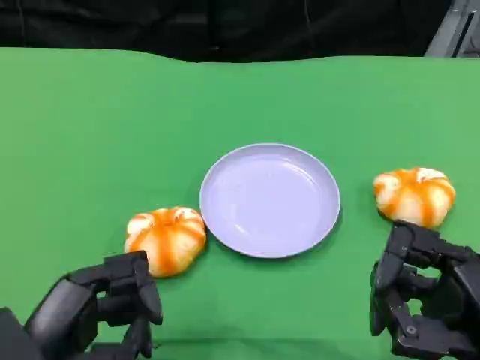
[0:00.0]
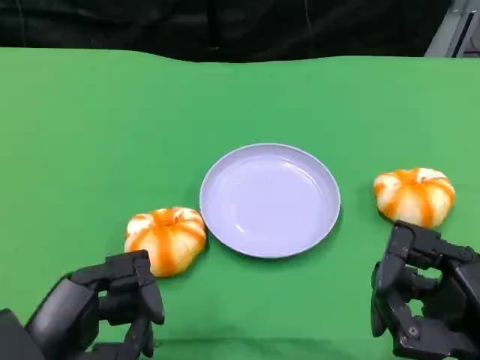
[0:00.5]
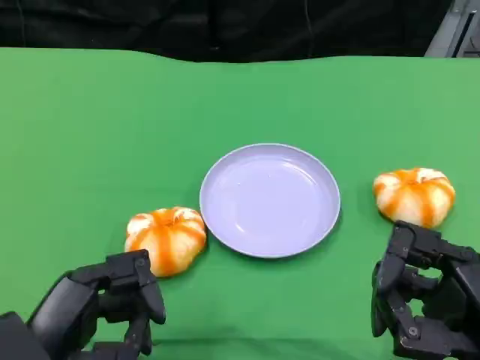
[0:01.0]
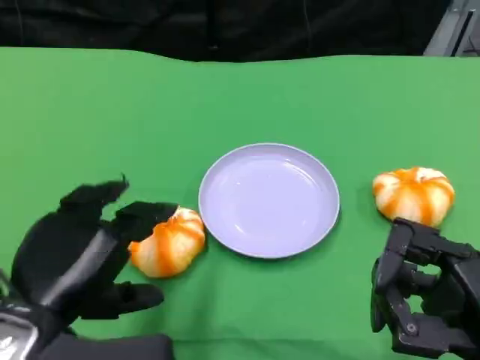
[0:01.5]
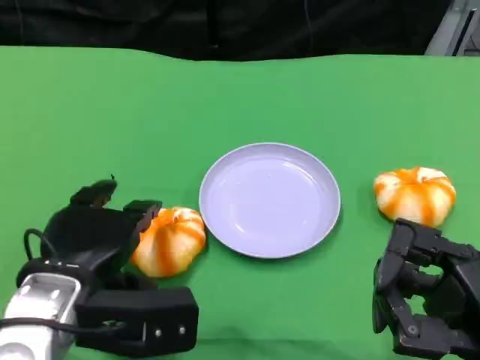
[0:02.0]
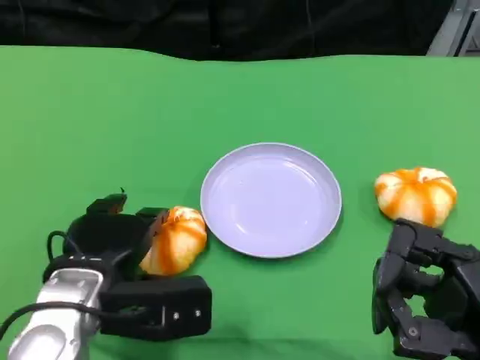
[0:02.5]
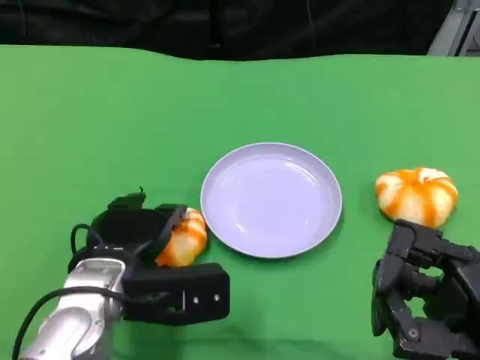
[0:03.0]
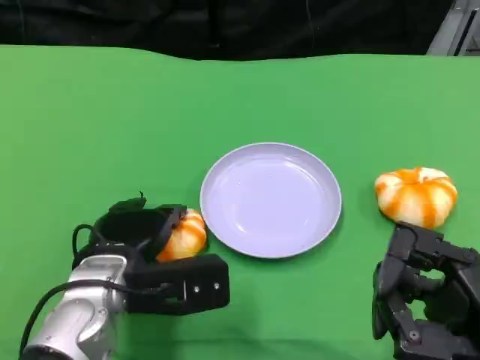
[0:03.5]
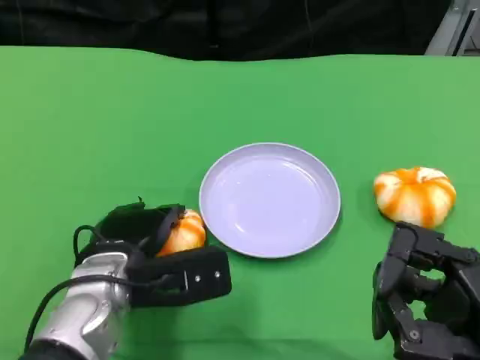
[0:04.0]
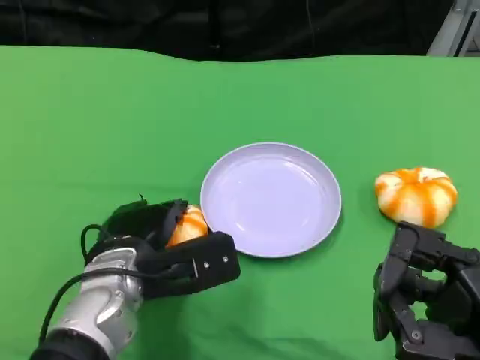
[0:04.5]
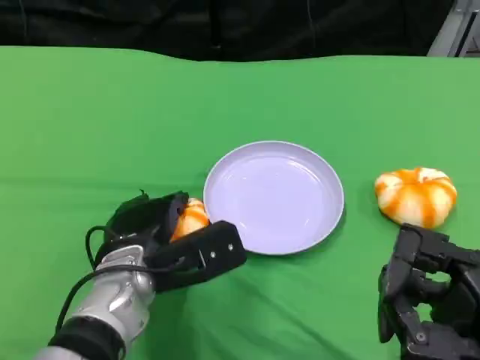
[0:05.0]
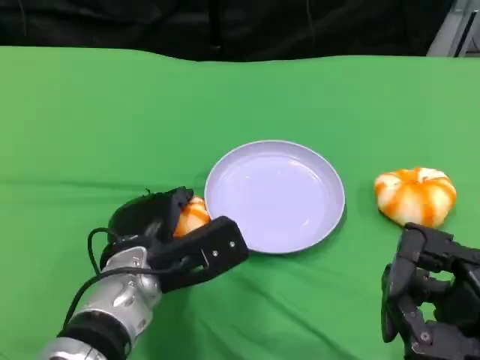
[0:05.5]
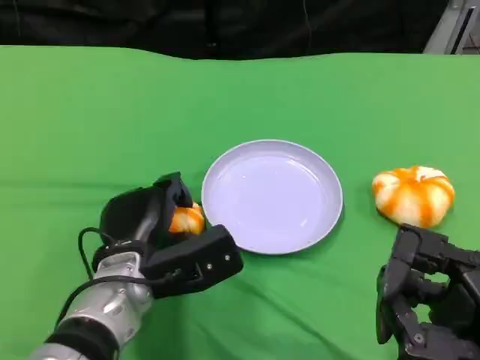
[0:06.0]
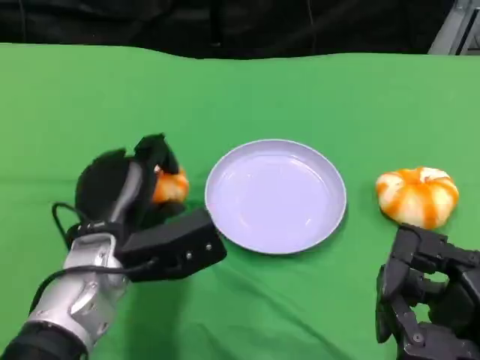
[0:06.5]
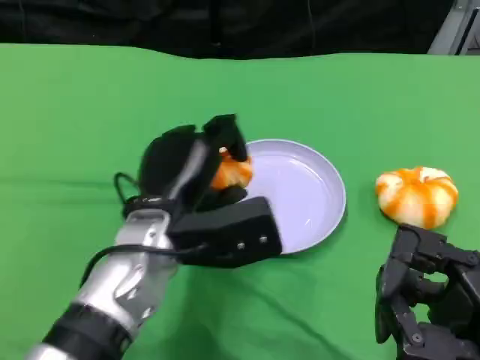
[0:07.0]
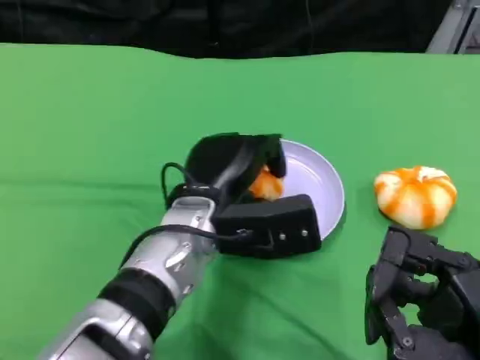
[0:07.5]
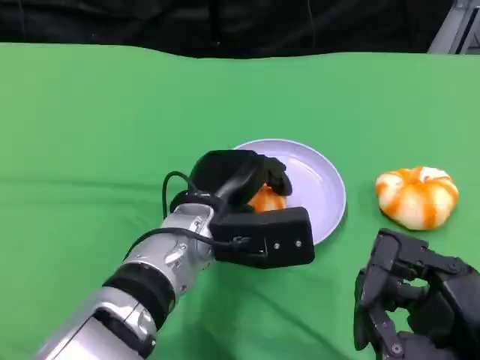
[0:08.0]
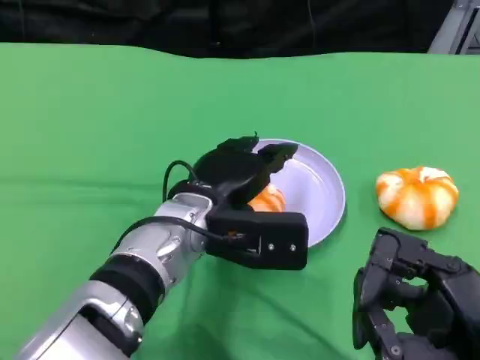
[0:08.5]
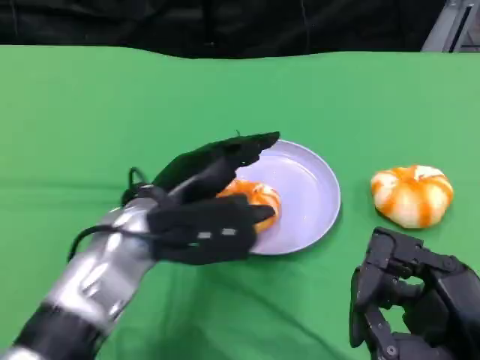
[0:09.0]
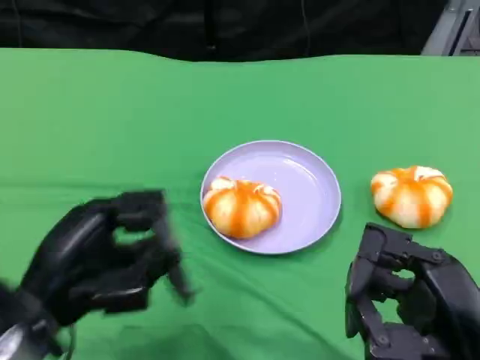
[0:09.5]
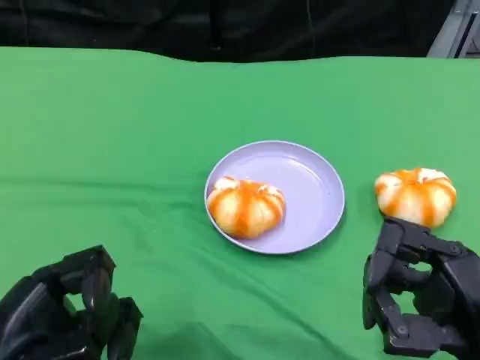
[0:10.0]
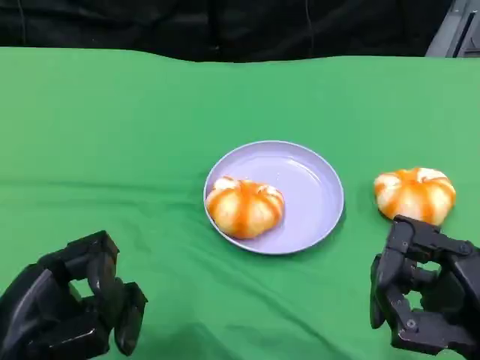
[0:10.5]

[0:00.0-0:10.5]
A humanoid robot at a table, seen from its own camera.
Task of the whole recording: Grasp the bread from the table and place it into the plate.
0:00.0 to 0:02.0: The left hand moves forward, some 10 cm.
0:02.0 to 0:04.0: The left hand moves approximately 10 cm.
0:06.5 to 0:08.5: The left hand goes roughly 10 cm to the right.
0:08.5 to 0:10.5: The left hand is displaced to the left and backward by about 25 cm.
